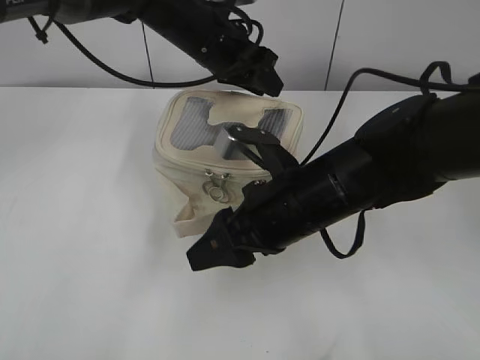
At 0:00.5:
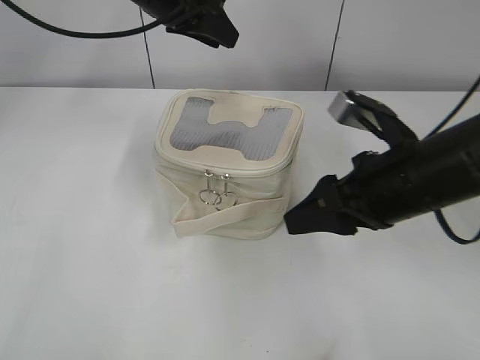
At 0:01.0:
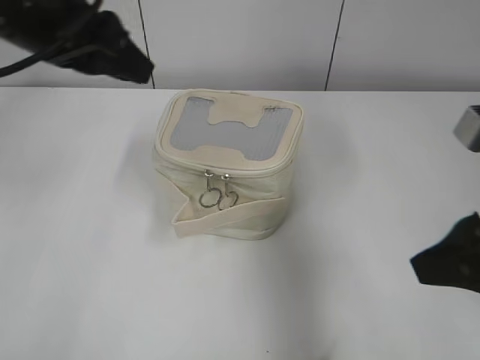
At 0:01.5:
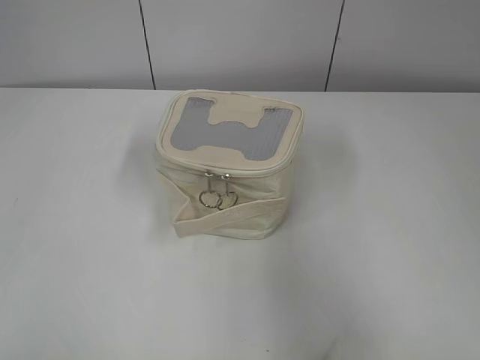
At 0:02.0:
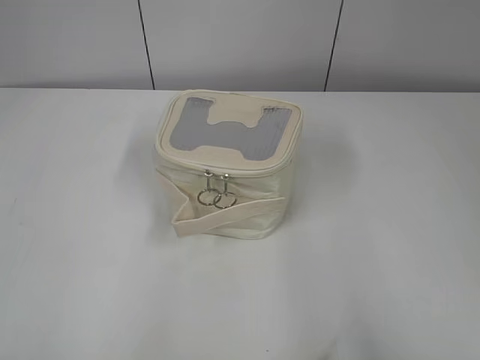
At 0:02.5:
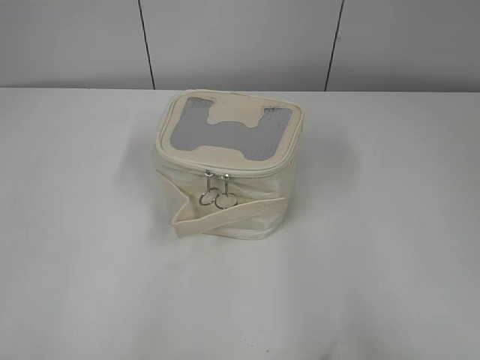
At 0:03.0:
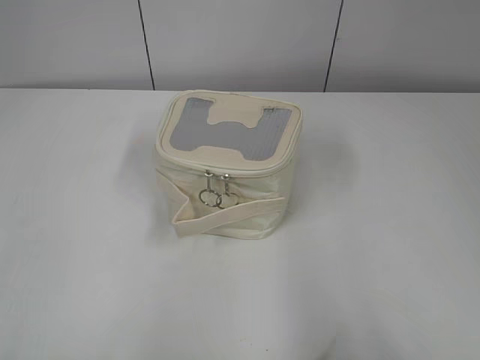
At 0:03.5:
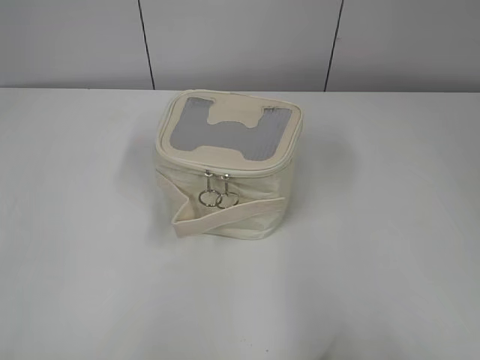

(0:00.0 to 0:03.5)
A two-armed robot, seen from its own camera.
0:00.0 - 0:02.0: The left gripper is displaced backward and to the left by roughly 50 cm. Meanwhile the right gripper shifts approximately 40 cm backward, to the right and upward, and opens.

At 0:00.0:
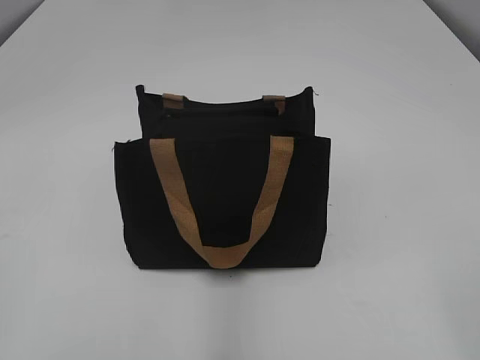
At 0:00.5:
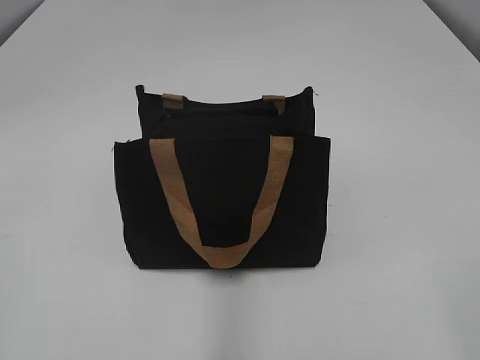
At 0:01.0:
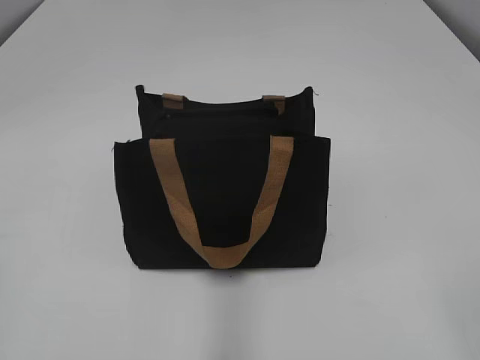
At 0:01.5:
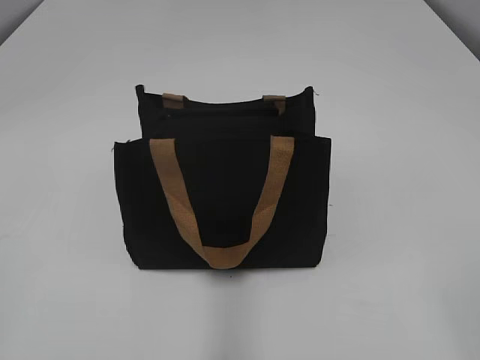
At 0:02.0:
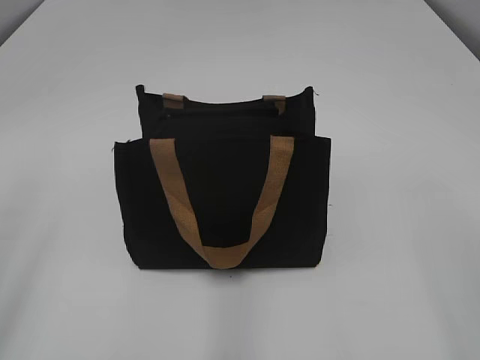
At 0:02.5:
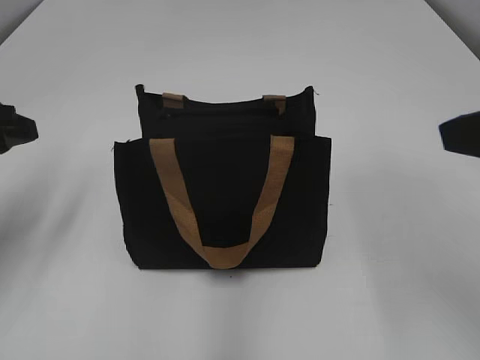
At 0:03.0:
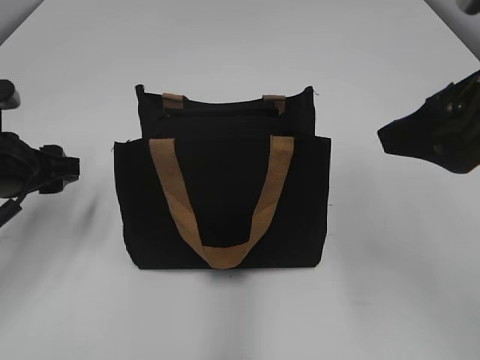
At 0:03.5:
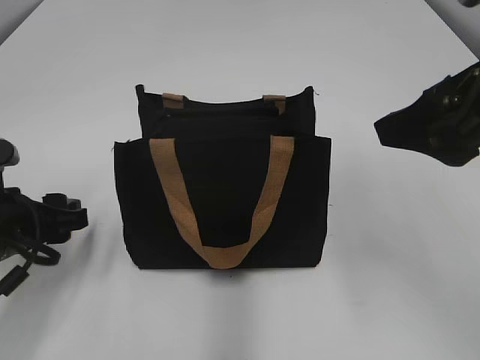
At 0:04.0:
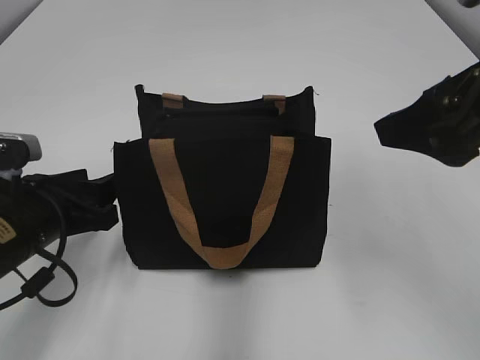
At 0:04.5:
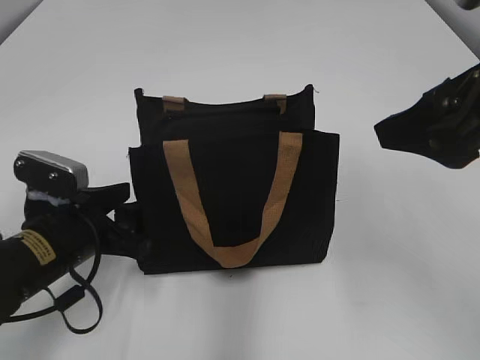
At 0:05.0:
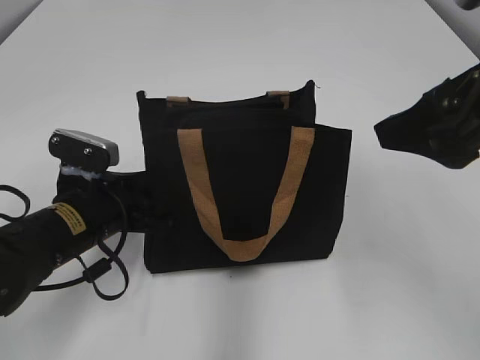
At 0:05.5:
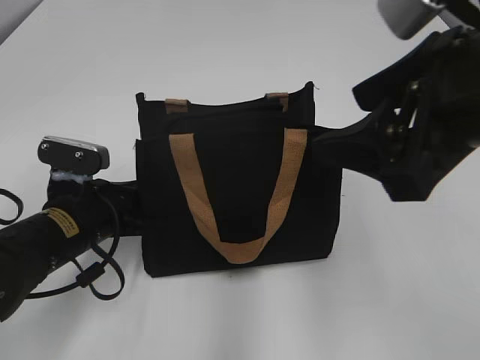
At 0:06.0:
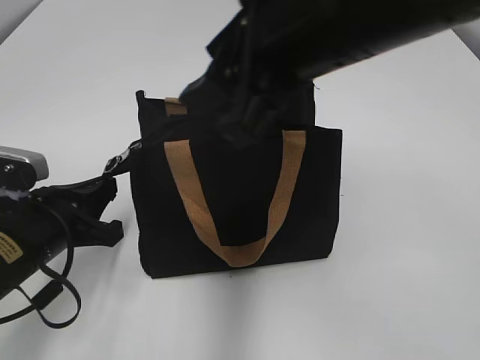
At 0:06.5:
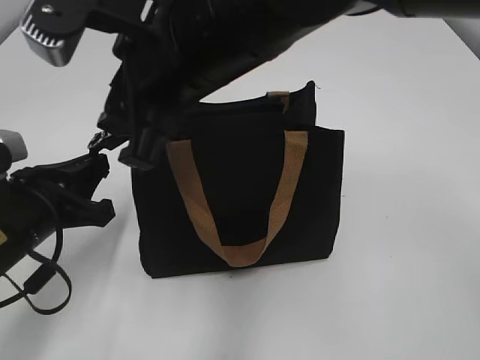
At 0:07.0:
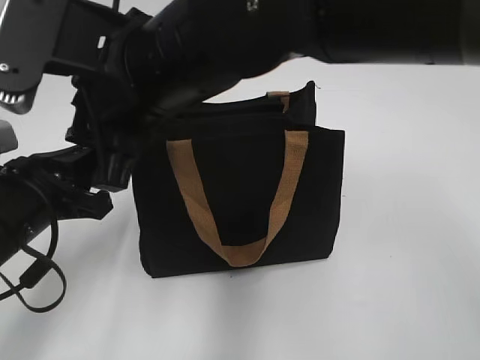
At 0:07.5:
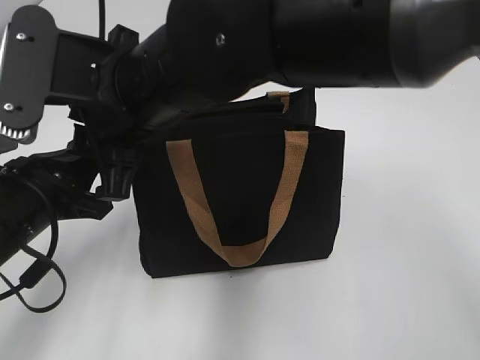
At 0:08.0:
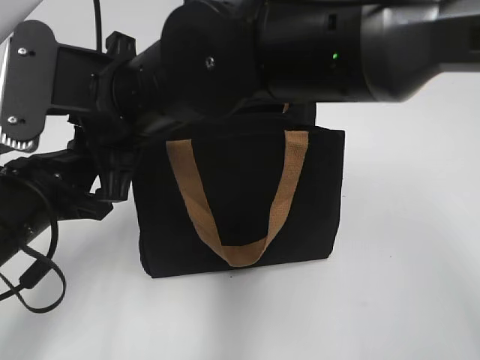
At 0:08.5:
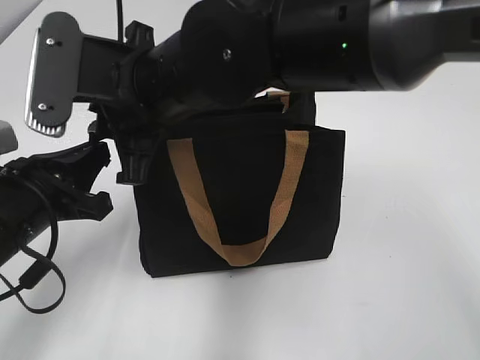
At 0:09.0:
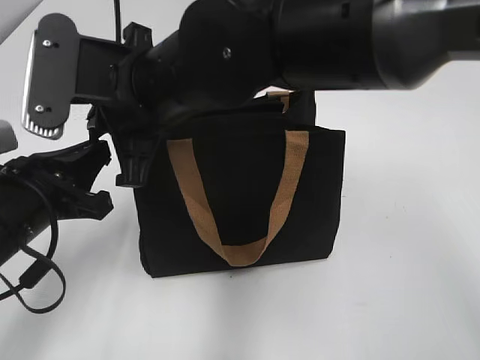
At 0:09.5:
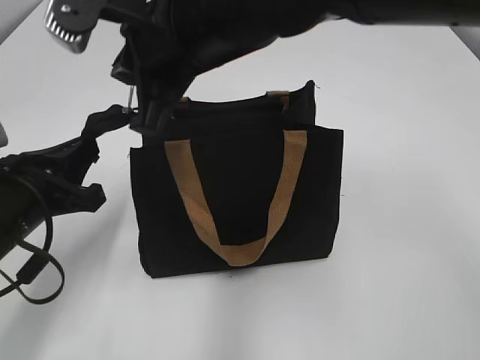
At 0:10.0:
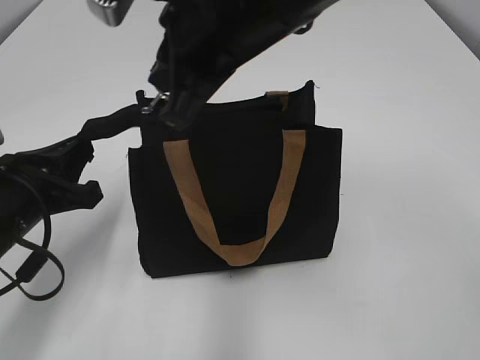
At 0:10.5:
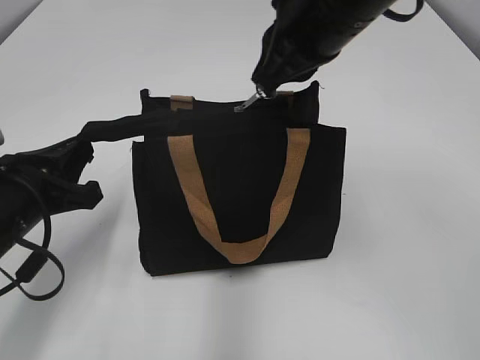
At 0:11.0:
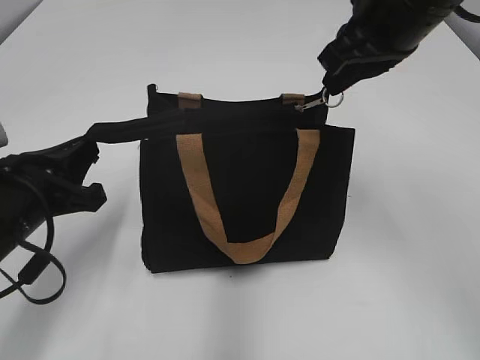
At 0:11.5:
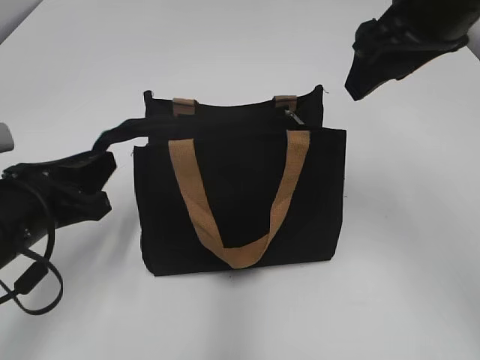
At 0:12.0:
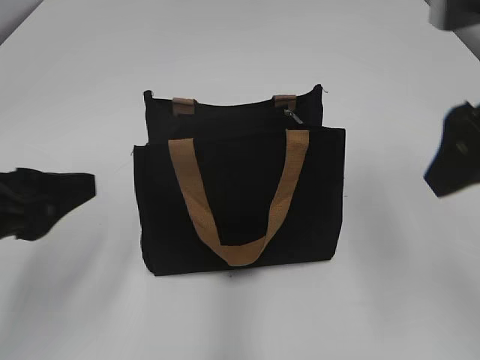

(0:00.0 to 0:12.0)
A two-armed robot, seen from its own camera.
Step, 0:00.0 - 0:11.0: Zip up the bag with your right hand.
0:02.0 - 0:04.0: The left gripper moves downward, forward and to the right, approximately 25 cm, while the right gripper heads forward and to the left, covering approximately 15 cm.
0:04.0 - 0:06.0: The left gripper closes. The right gripper goes approximately 15 cm to the left.
0:06.0 - 0:08.0: The right gripper is displaced to the left and downward by some 15 cm.
0:08.0 - 0:10.0: The right gripper is displaced to the right and upward by about 10 cm, and closes its fingers.
0:10.0 - 0:12.0: The left gripper shifts roughly 10 cm upward and backward, and opens; the right gripper moves to the right and backward, approximately 20 cm, and opens its fingers.

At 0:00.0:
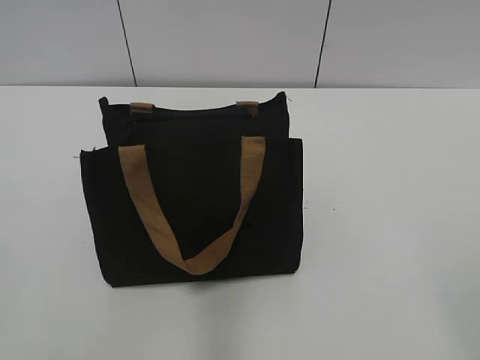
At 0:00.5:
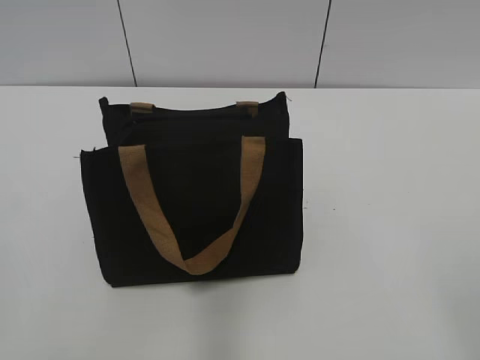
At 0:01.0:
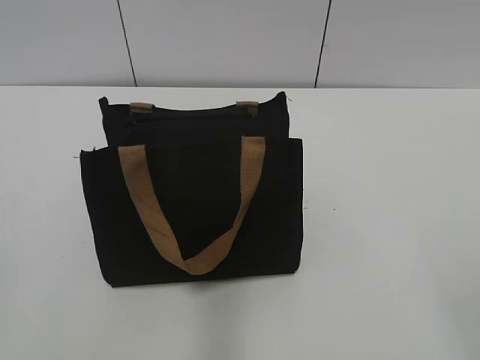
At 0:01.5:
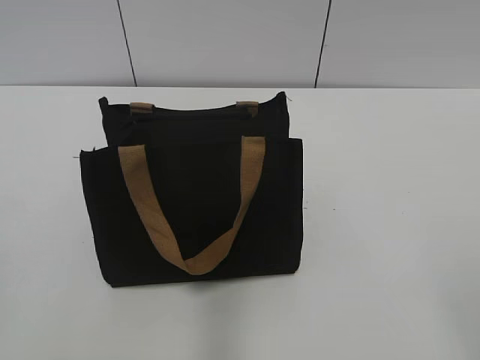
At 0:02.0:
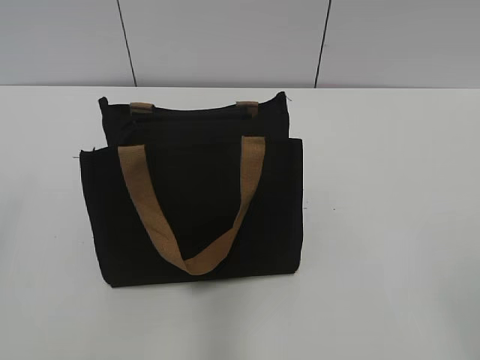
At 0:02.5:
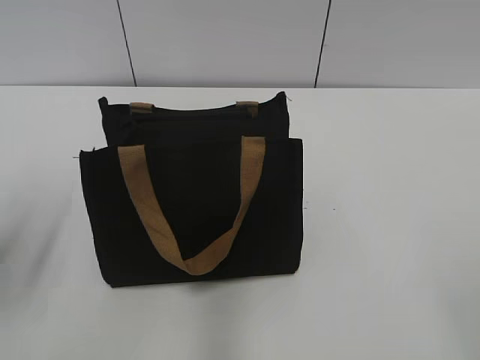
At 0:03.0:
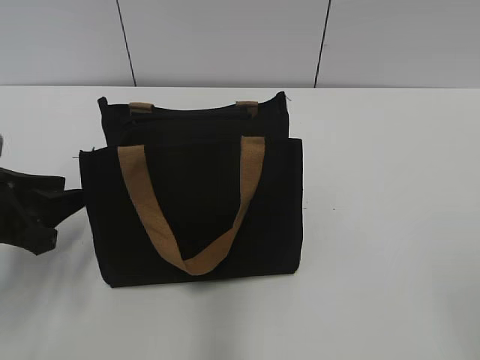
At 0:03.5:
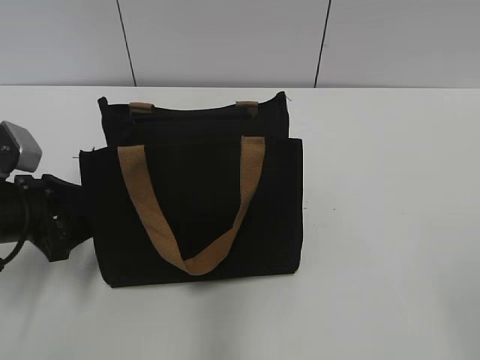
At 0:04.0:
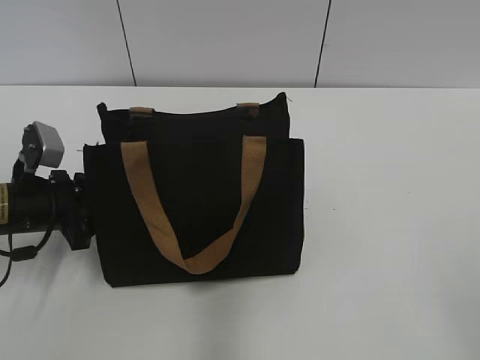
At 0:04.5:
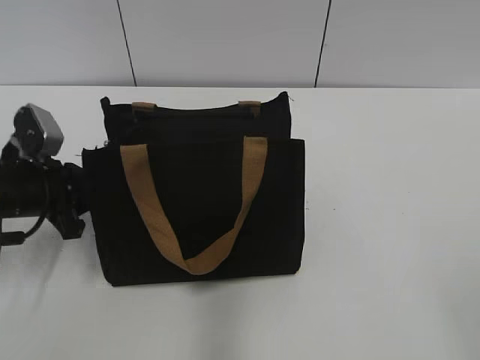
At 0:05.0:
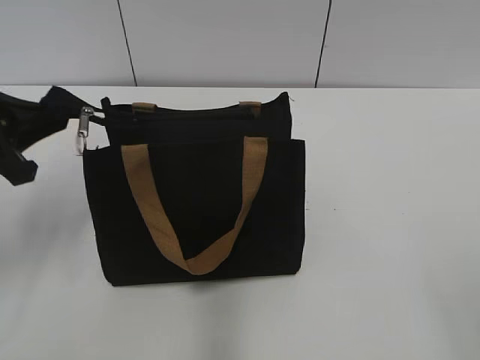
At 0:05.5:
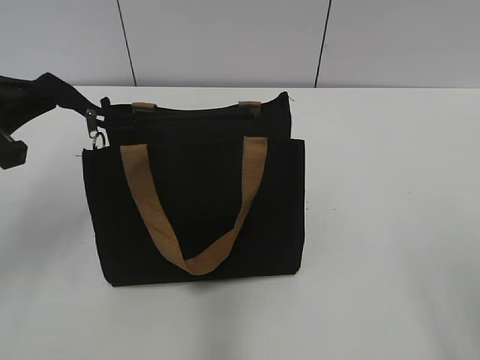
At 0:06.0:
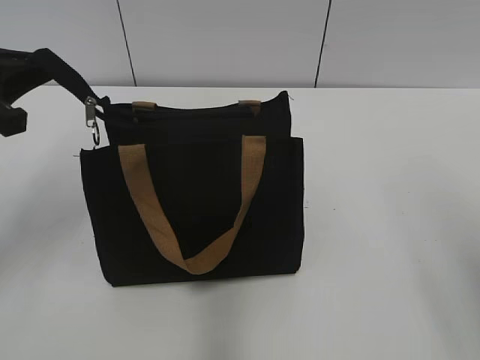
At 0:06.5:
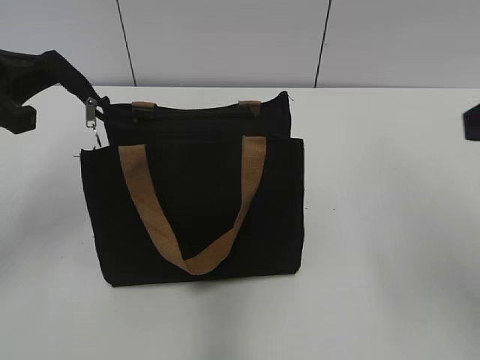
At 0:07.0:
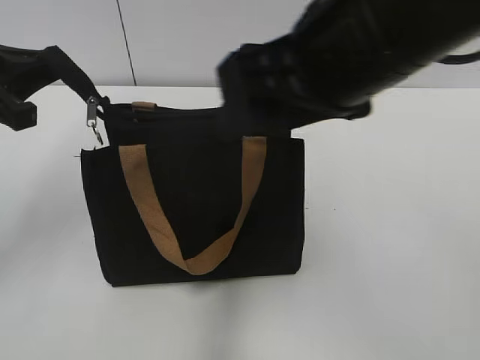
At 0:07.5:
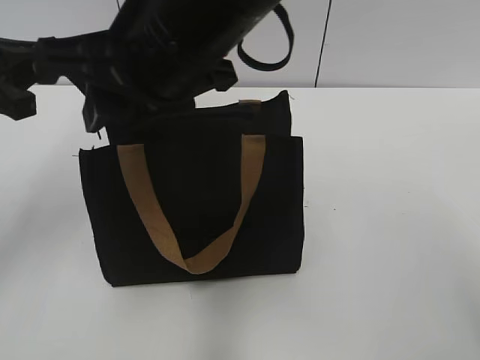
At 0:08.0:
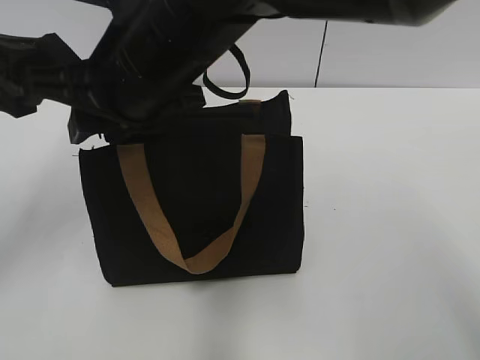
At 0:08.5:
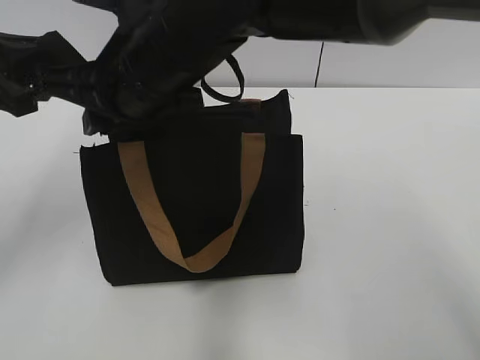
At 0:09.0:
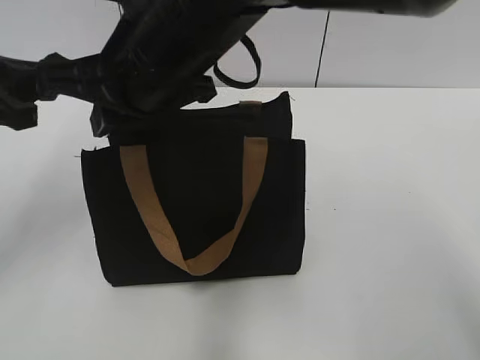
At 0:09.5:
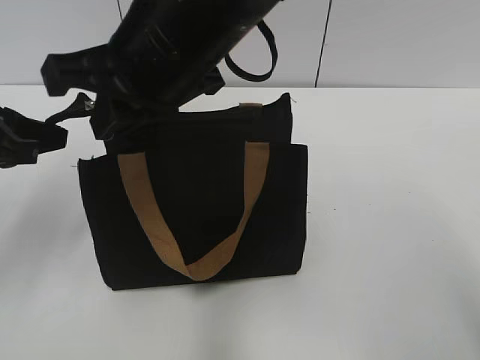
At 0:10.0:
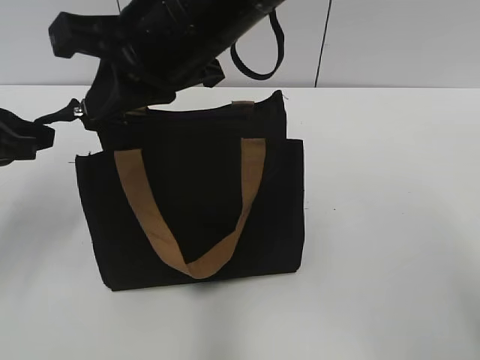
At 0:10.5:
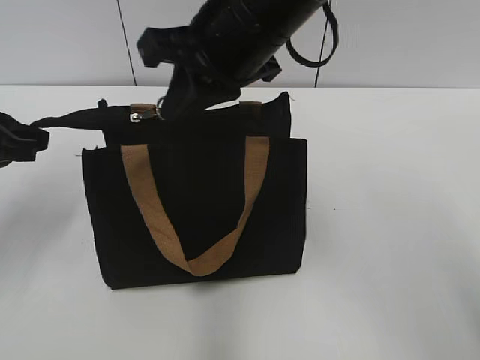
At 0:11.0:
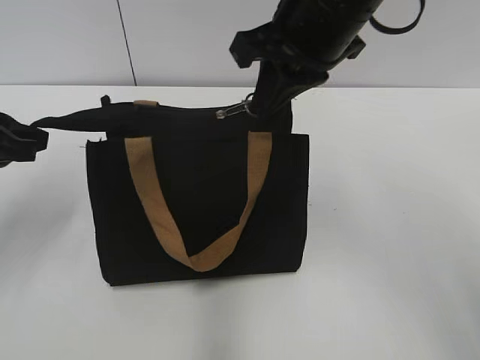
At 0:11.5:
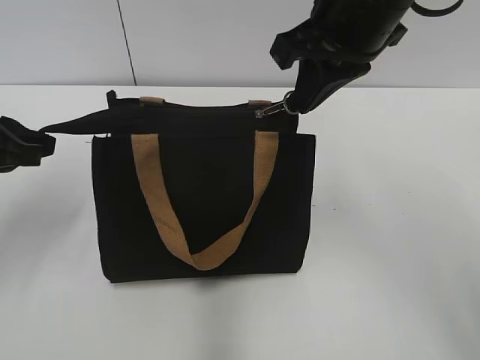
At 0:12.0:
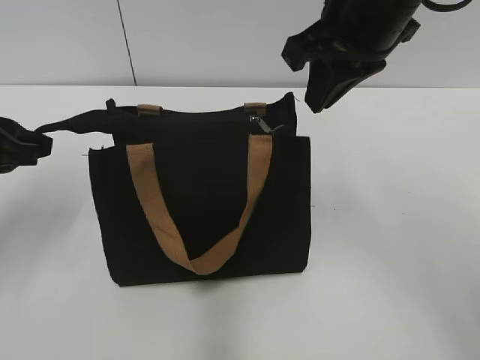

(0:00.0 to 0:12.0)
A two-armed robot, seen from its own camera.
Step, 0:00.0 - 0:11.5: Zip up the bag with your right hand.
0:02.0 - 0:04.0: The left gripper is displaced forward and downward by approximately 35 cm, and closes.
0:04.0 - 0:06.0: The left gripper shifts approximately 15 cm upward, and closes its fingers; the right gripper heads forward and upward, covering about 10 cm.
0:06.0 - 0:08.0: The right gripper is displaced to the left and forward by approximately 40 cm, and closes.
0:08.0 - 0:10.0: The right gripper closes its fingers.
0:10.0 - 0:12.0: The right gripper goes about 15 cm to the right.
